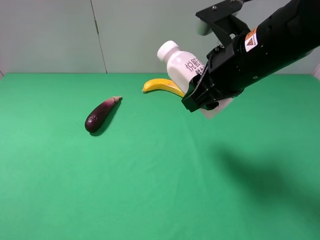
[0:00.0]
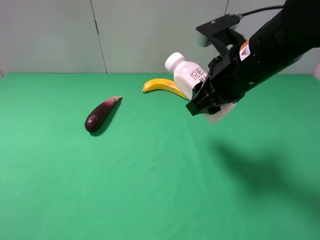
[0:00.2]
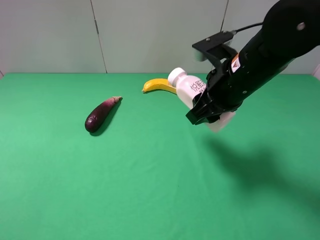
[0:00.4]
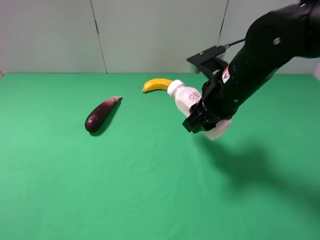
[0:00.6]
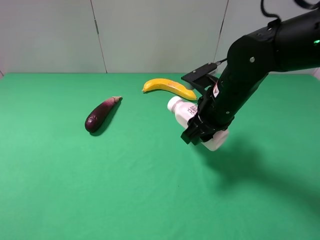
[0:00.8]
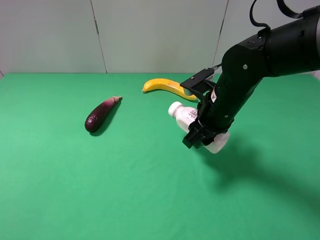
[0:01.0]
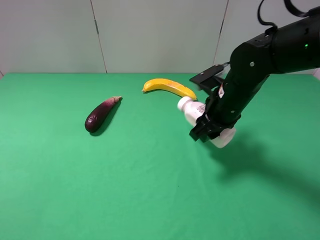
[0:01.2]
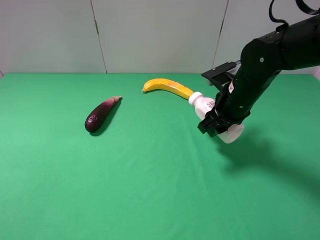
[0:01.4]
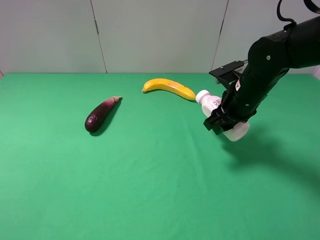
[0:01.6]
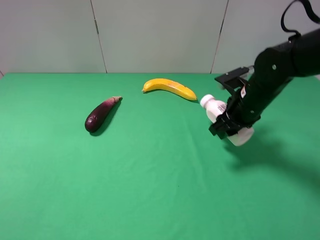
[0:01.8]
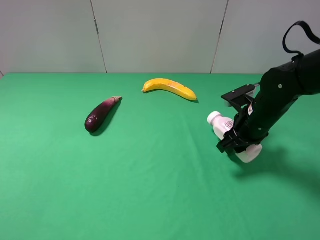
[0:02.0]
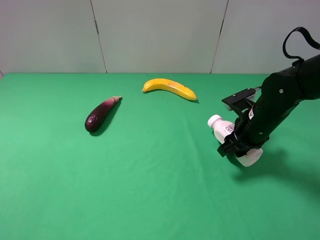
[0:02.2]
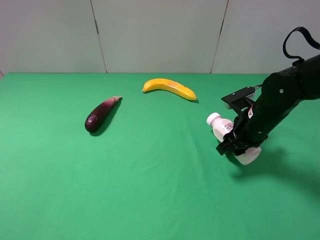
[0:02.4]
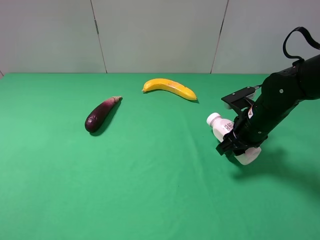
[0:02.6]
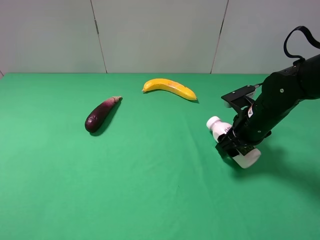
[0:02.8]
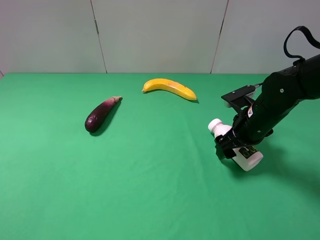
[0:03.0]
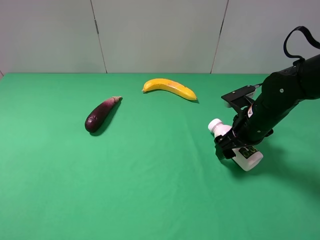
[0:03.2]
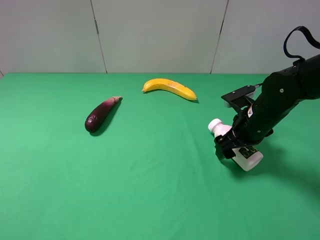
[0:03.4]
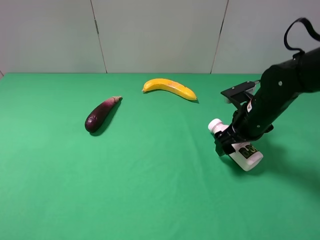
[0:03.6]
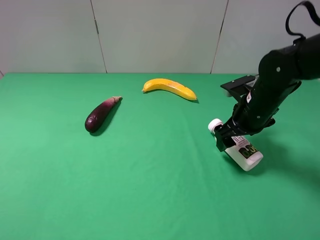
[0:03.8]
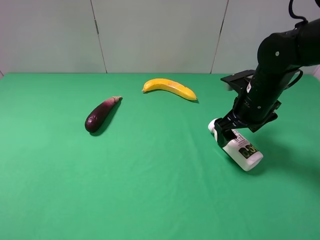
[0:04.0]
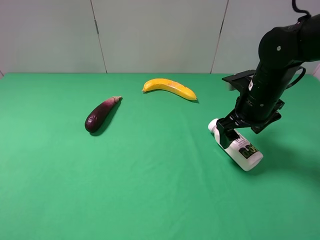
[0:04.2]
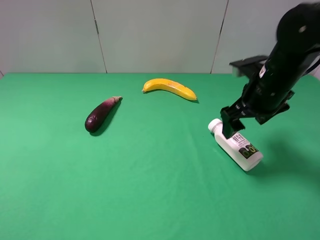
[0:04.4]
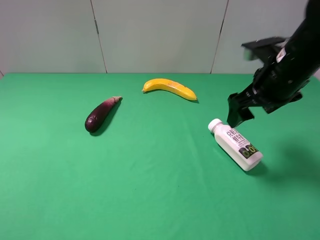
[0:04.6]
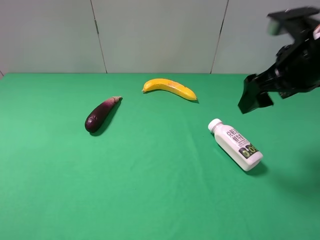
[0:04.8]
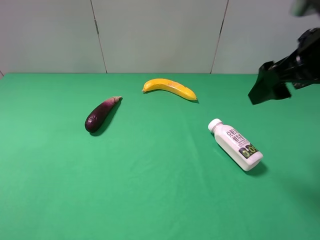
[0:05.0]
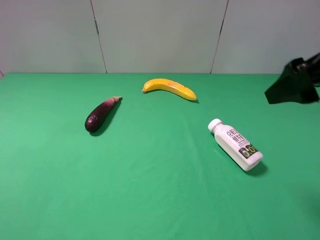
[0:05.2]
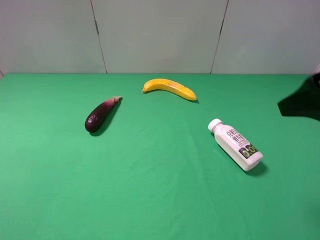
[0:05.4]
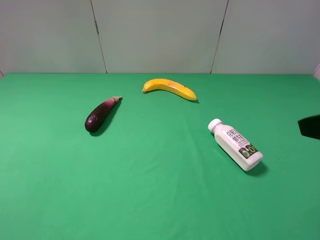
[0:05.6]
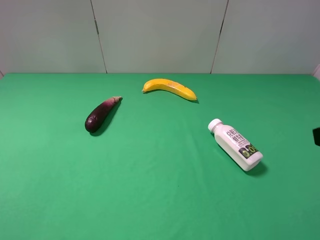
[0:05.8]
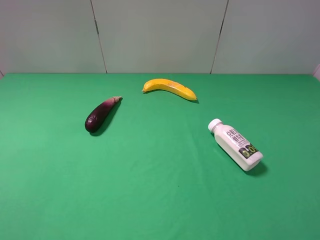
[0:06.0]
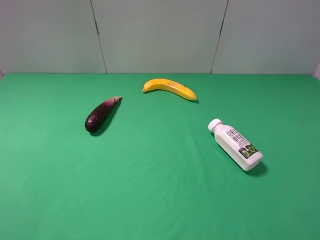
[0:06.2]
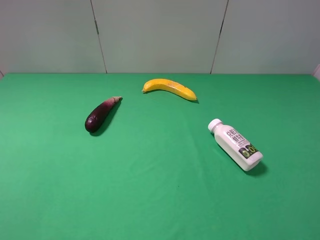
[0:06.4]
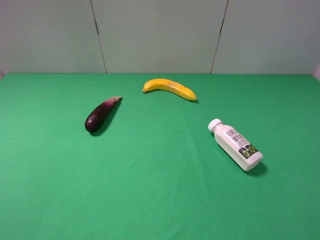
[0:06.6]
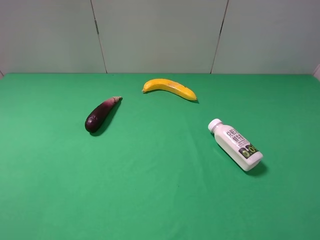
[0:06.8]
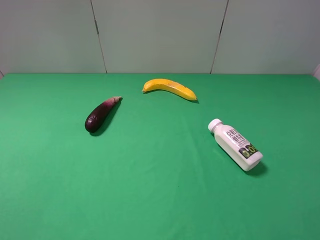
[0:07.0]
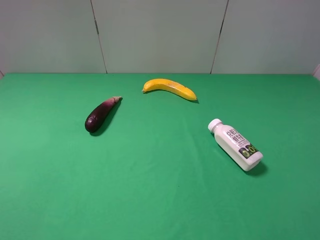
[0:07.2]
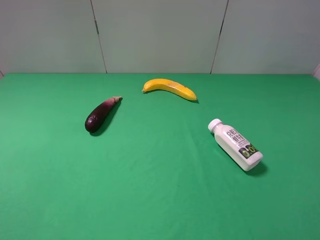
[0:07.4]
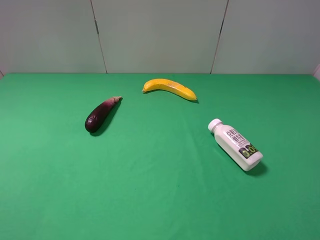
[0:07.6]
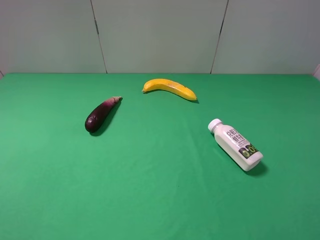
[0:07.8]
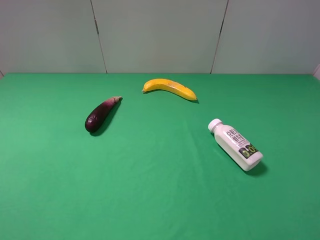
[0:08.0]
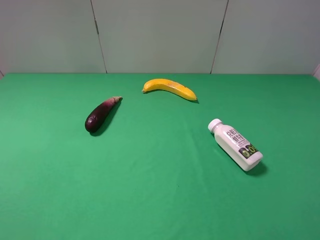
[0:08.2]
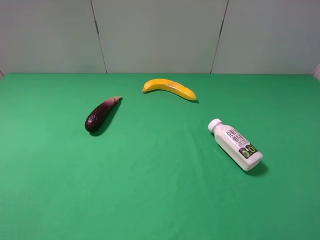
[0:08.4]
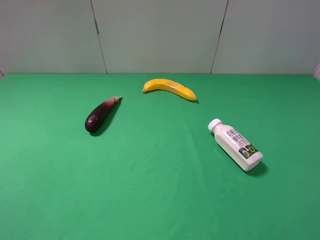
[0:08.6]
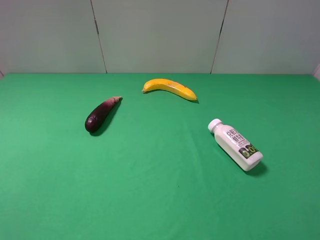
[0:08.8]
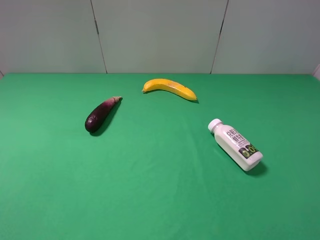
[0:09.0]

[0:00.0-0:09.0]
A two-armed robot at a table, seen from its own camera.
Task of the whole recording: use the left gripper to pick up the item and transfer it from the left gripper to the right gripper.
Step, 0:00.0 to 0:03.6: The right gripper places milk on the right side of the table.
0:00.0 to 0:01.6: The right gripper travels downward, forward and to the right by approximately 15 cm.
0:01.6 to 0:03.0: The right gripper changes place by some 5 cm, and opens.
0:03.0 to 0:04.4: The right gripper travels upward by some 10 cm.
0:04.4 to 0:06.0: The right gripper goes approximately 25 cm backward.
